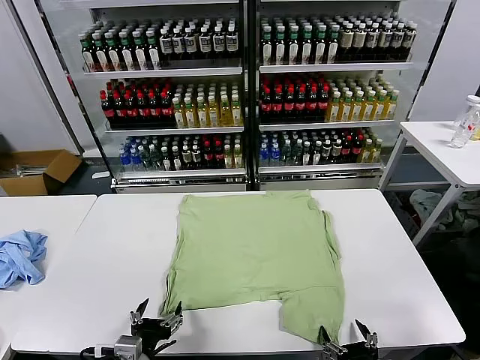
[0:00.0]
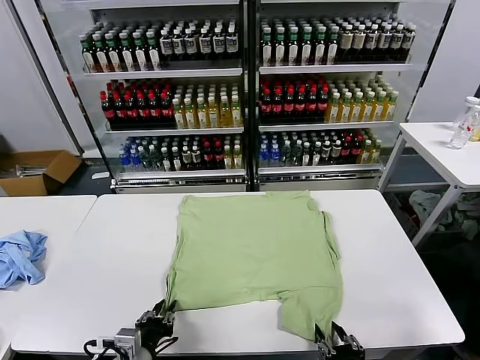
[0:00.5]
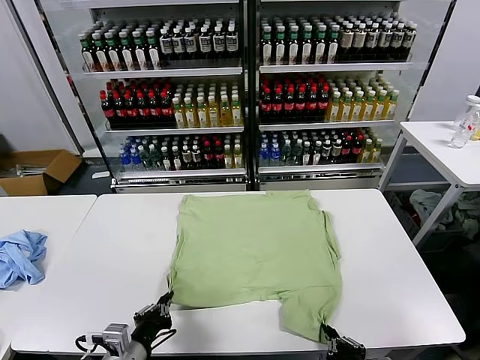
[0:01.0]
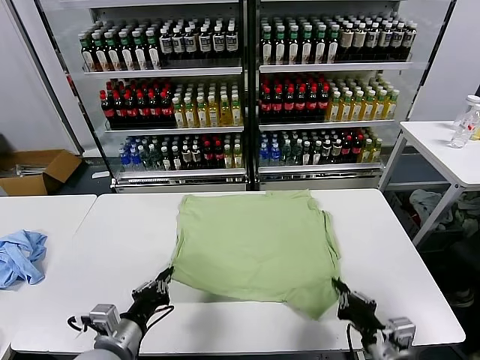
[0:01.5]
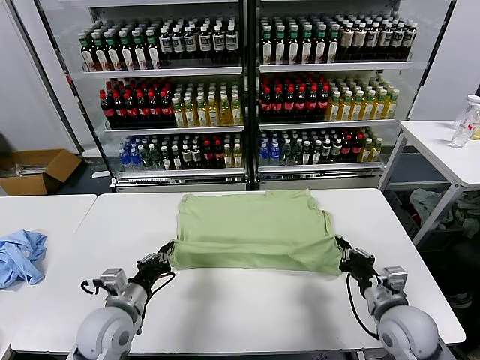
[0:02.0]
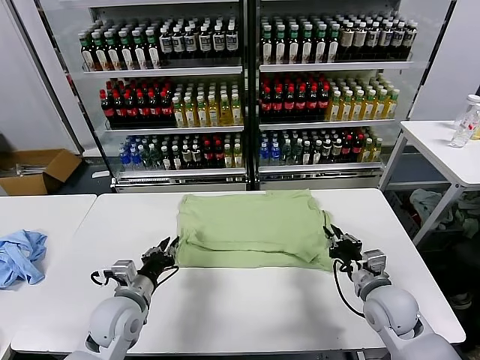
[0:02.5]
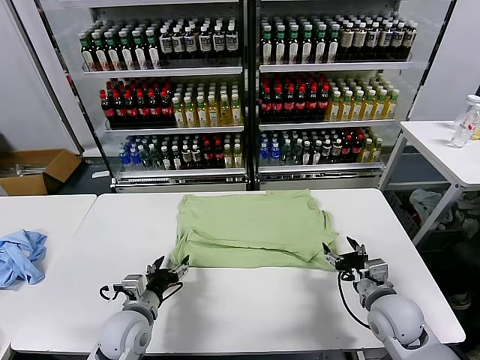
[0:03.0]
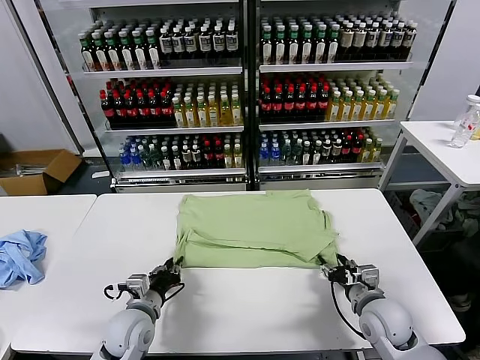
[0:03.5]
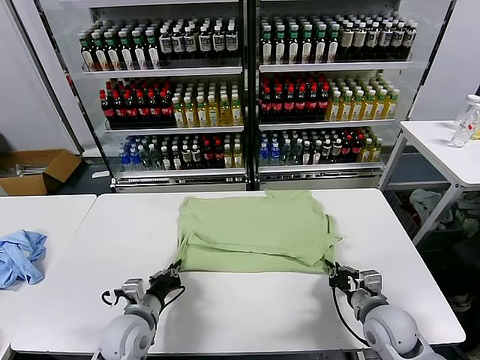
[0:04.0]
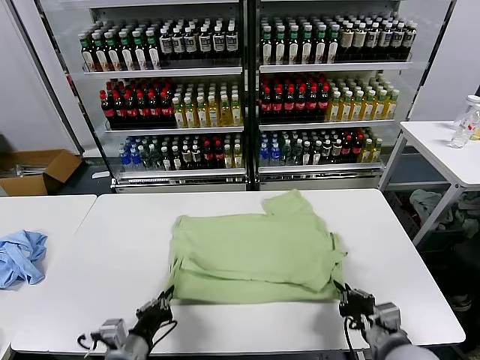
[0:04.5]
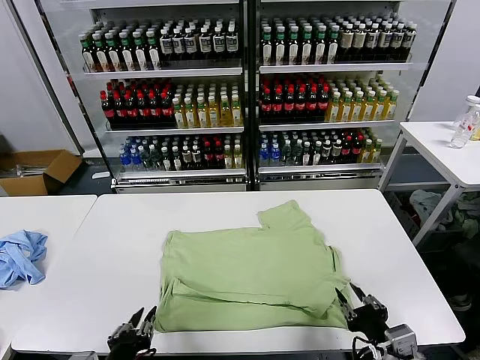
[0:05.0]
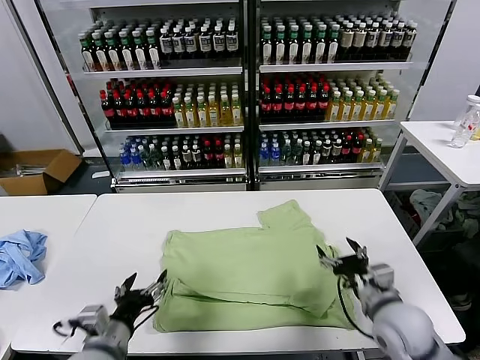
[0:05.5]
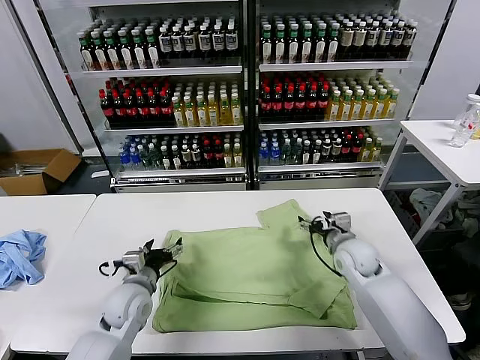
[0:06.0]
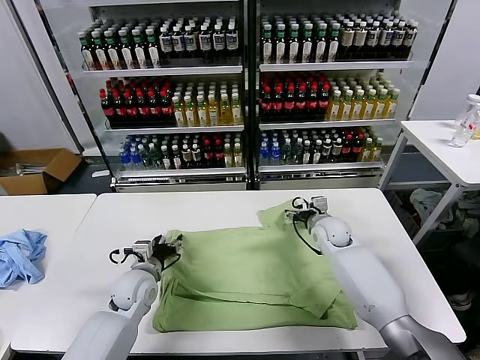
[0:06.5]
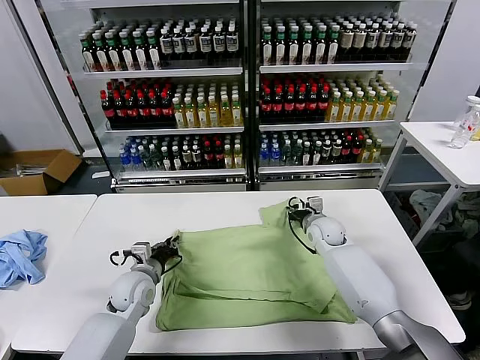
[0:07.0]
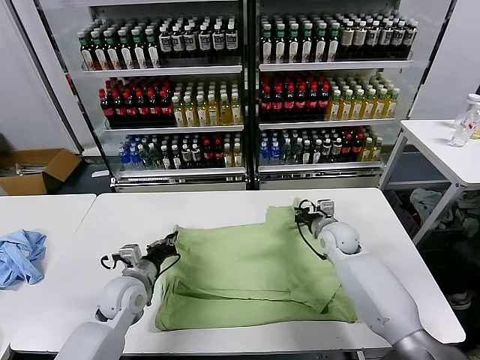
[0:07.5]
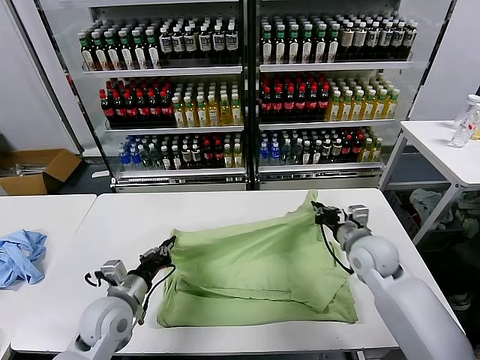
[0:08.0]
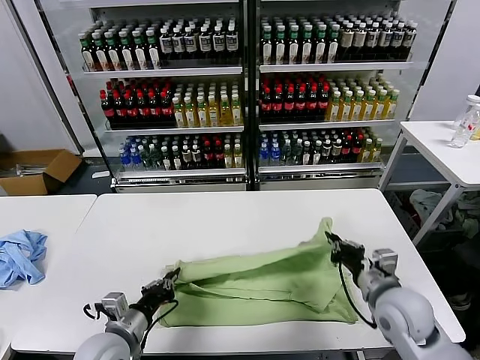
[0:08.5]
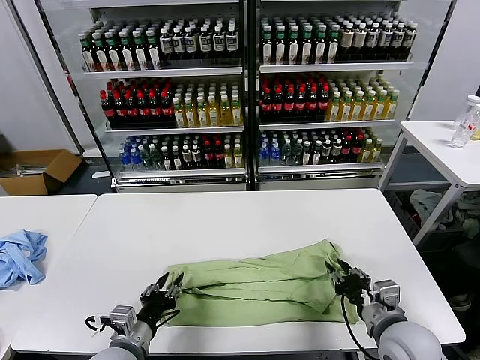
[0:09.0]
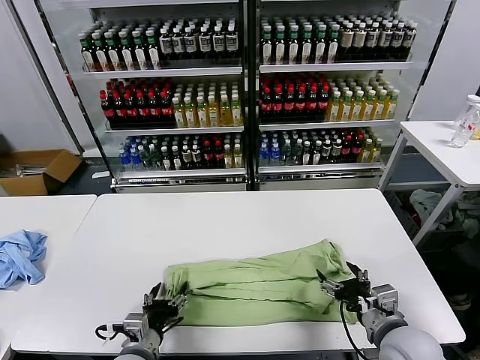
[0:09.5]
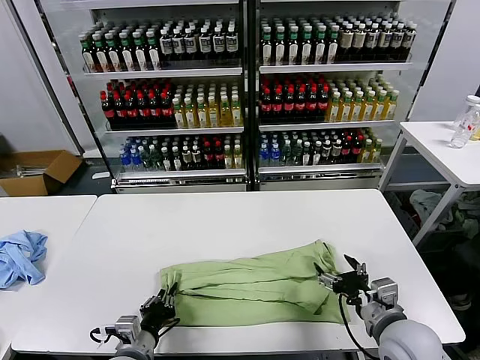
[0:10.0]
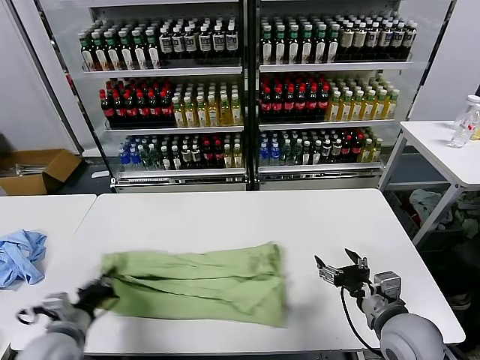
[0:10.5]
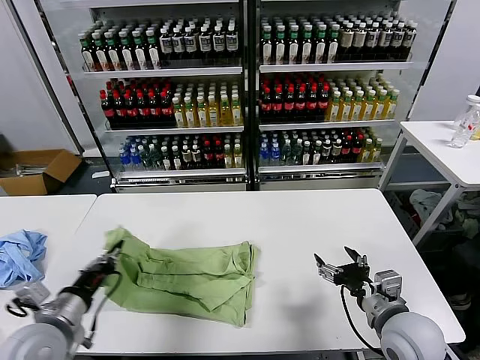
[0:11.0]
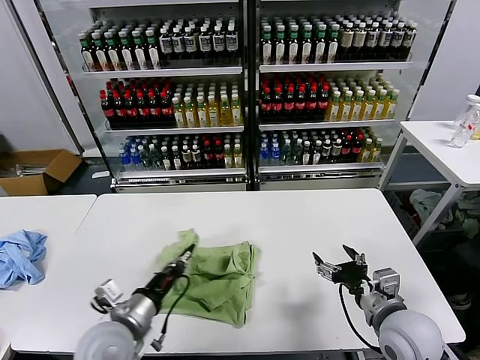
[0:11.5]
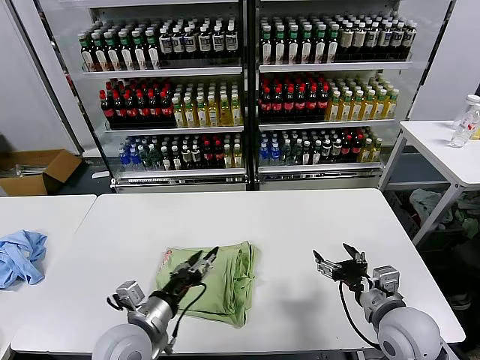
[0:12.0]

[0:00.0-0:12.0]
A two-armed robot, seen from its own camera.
Task of the whole recording: fold and organize the clothes.
Step, 0:00.0 to 0:00.5: use both grippers simultaneously to clamp the lower edge of the clothing fabric.
Step, 0:01.0 to 0:02.5: use both grippers to drag the lower edge of the fabric forward and fold it over the upper edge.
Step, 0:03.0 to 0:04.5: Drag the clothes downward with both gripper.
Step, 0:05.5 to 0:07.0: use both grippers simultaneously to clamp the upper edge of the clothing fabric.
Step, 0:07.5 to 0:09.0: use both grippers to drag the upper edge of the fabric backward and fold it over the lower edge.
Step, 0:09.5 to 0:10.0: use the left gripper to clamp the left edge of the fabric.
Step, 0:10.5 to 0:11.5: use the left gripper to drag the left edge of the fabric to the left and folds it over the right edge.
0:02.0 to 0:04.0: The right gripper opens, then closes again. Meanwhile the left gripper travels downward by about 5 cm, and opens, then closes once more.
0:04.0 to 0:06.0: The right gripper travels forward by roughly 20 cm, and opens. Meanwhile the left gripper goes backward and returns, approximately 15 cm each way, and opens.
0:06.0 to 0:08.0: The right gripper travels backward and upward by about 10 cm, and closes; the left gripper moves about 5 cm, and closes up.
0:08.0 to 0:10.0: The right gripper is displaced backward by approximately 15 cm, and opens up; the left gripper goes some 10 cm backward and downward, and opens and closes again.
0:10.0 to 0:12.0: The left gripper moves upward, some 10 cm, and moves roughly 10 cm to the left and comes back.

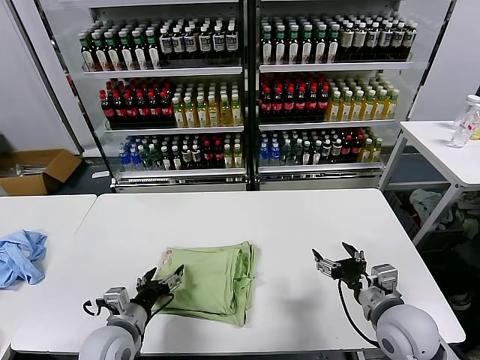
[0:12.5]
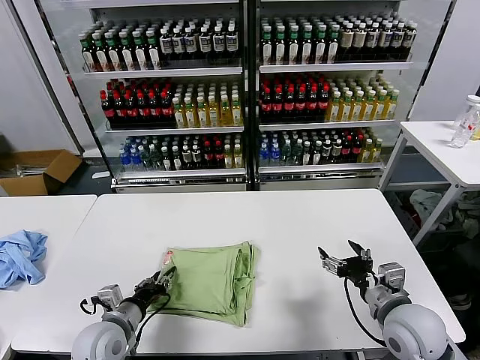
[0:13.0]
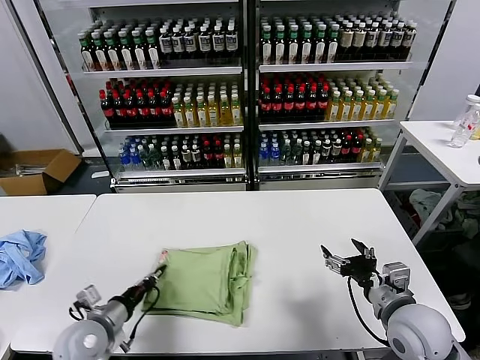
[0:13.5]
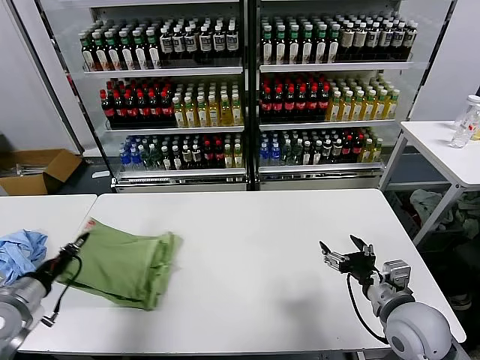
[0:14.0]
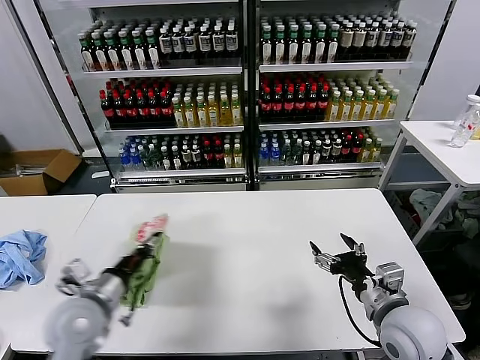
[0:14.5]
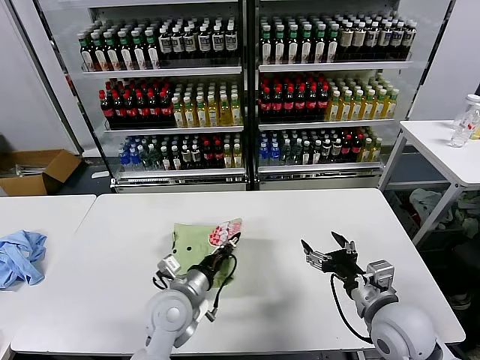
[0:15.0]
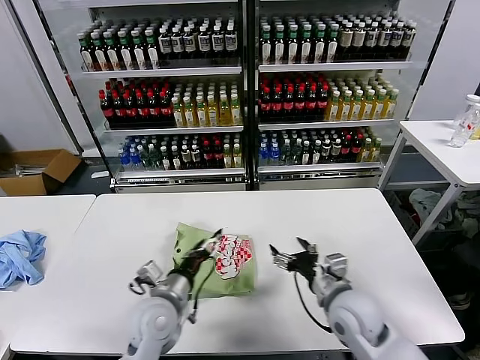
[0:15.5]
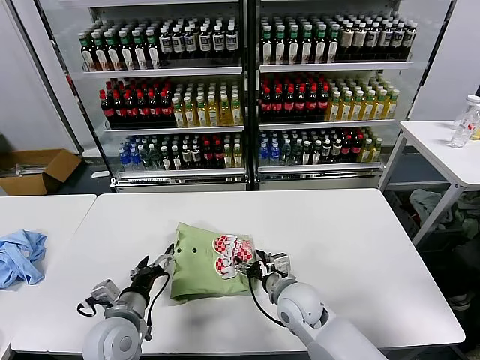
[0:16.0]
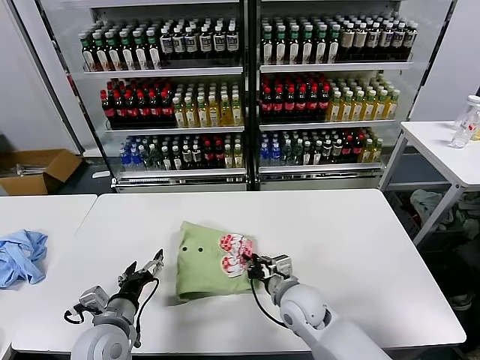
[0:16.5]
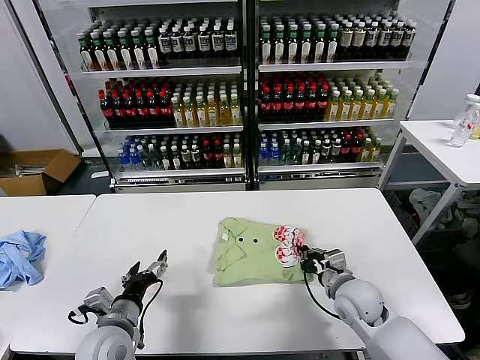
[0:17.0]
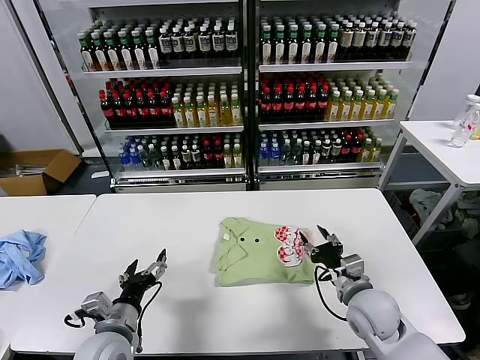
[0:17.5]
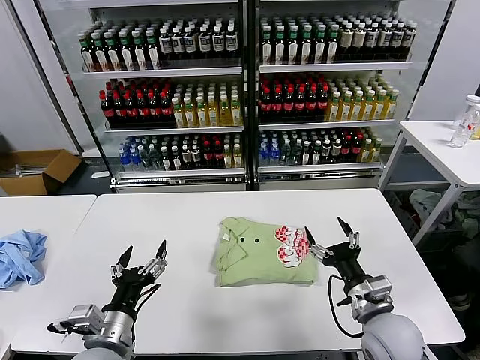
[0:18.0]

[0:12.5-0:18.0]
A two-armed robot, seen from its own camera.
Task of the whole recording: fold and organize the clothes.
Step, 0:12.5 to 0:15.0: Flip the folded clothes over with left gripper.
Step, 0:15.5 to 0:17.0: Drag the clothes to the center of the table.
0:12.5 to 0:14.5: The left gripper goes some 10 cm upward, moves some 20 cm to the left and comes back, and closes up.
0:14.5 to 0:16.0: The left gripper heads to the right and downward, covering roughly 10 cm, and opens its fingers; the right gripper travels to the left, downward and forward by about 20 cm.
0:16.0 to 0:18.0: The right gripper moves to the right and backward, roughly 15 cm, and closes and opens again; the left gripper travels backward by approximately 5 cm.
